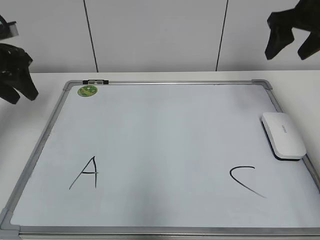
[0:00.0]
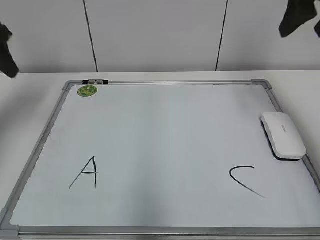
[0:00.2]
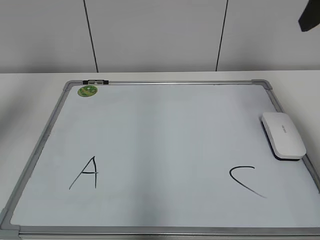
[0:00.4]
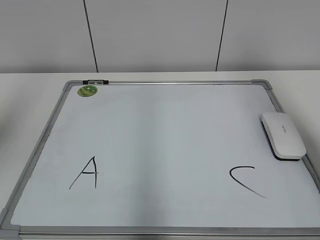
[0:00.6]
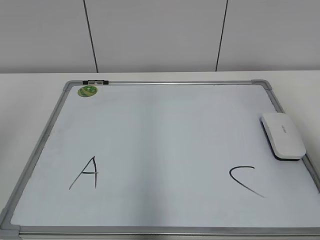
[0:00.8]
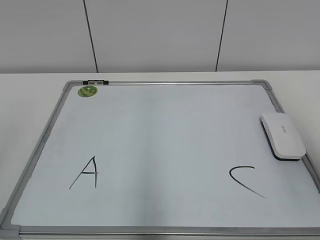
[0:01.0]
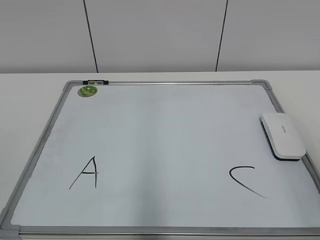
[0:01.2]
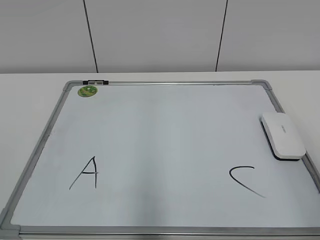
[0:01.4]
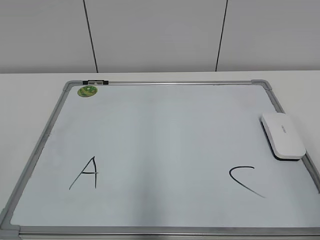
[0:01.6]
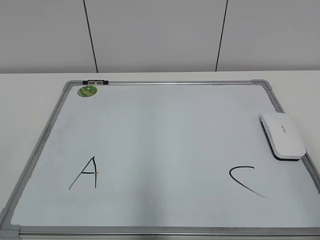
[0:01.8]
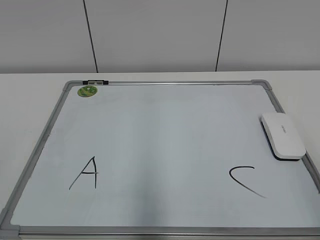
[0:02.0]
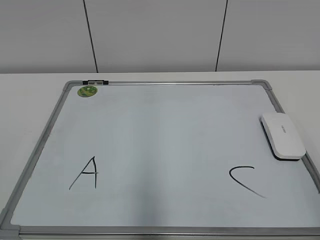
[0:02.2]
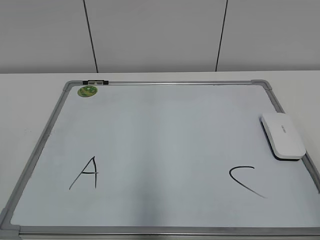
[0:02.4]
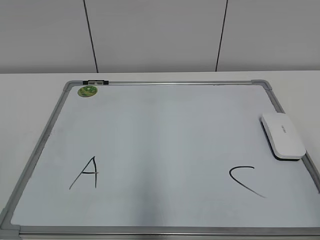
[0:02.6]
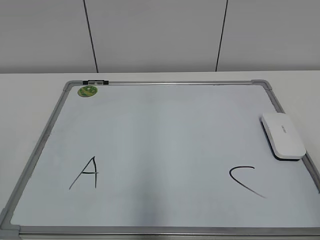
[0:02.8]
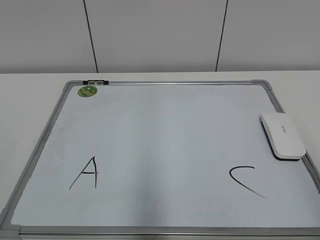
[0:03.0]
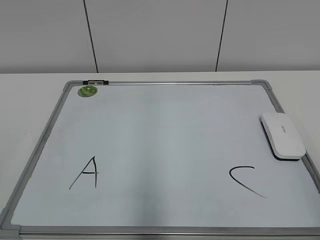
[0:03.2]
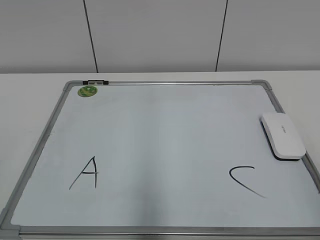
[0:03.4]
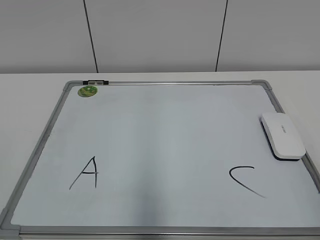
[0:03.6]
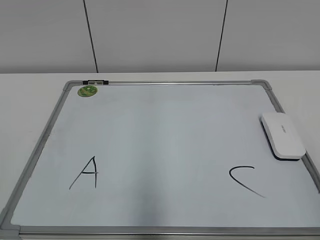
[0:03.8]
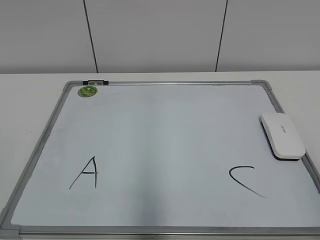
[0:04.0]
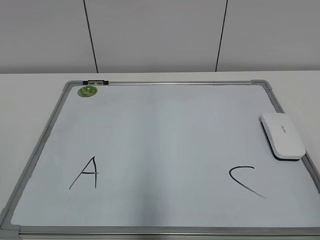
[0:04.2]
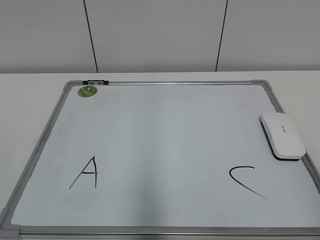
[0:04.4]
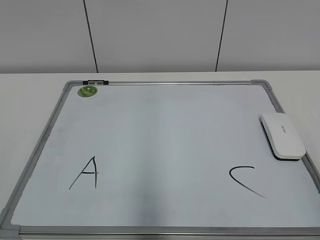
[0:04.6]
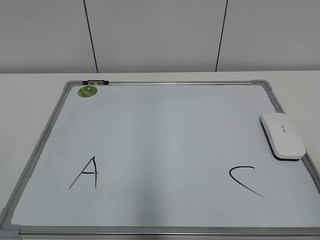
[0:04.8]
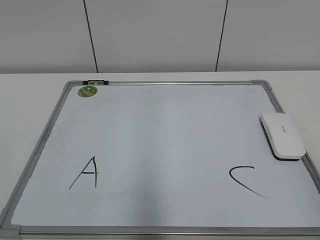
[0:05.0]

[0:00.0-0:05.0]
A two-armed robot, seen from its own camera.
Task of the whole recording: pick up the eraser on the blackboard and erase the letter "B".
0:00.0 to 0:01.6: The grippers both shift backward by some 40 cm.

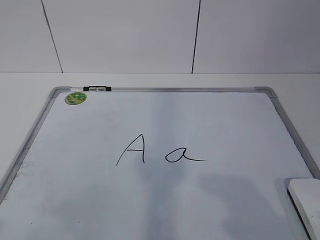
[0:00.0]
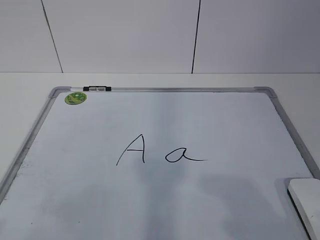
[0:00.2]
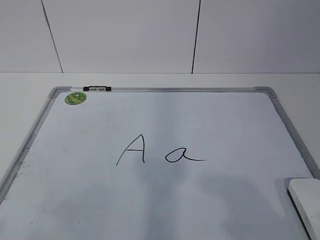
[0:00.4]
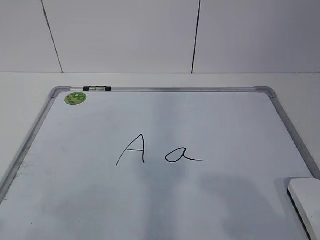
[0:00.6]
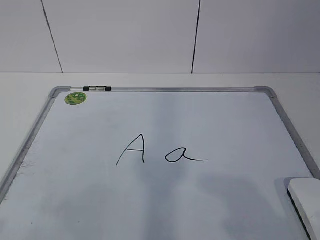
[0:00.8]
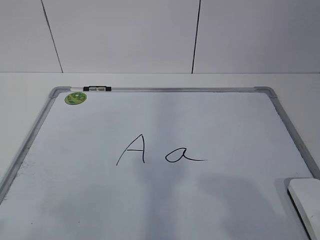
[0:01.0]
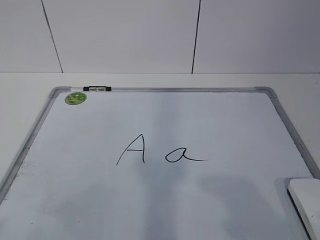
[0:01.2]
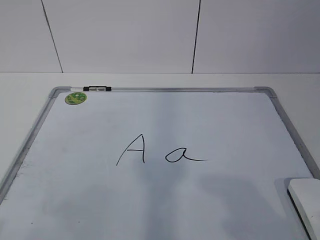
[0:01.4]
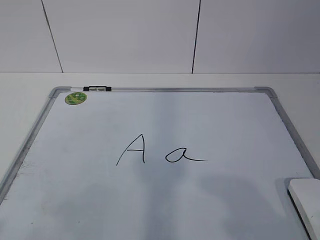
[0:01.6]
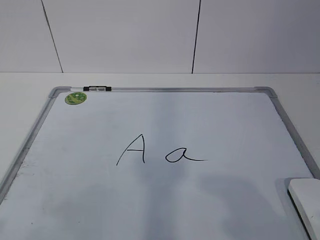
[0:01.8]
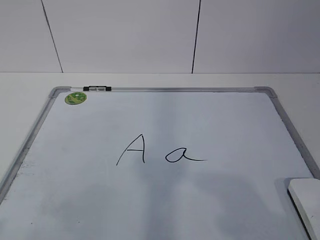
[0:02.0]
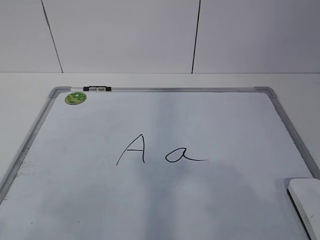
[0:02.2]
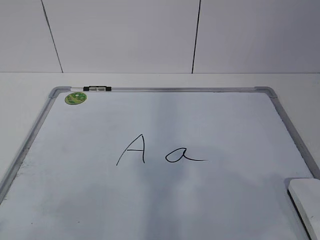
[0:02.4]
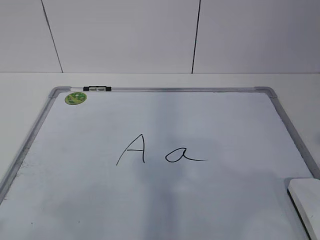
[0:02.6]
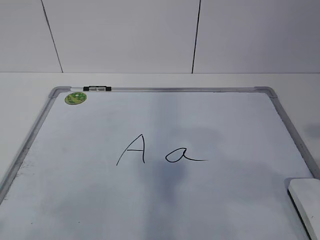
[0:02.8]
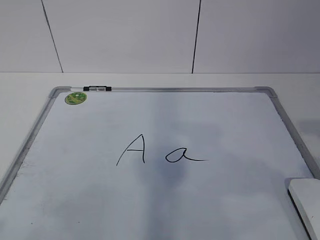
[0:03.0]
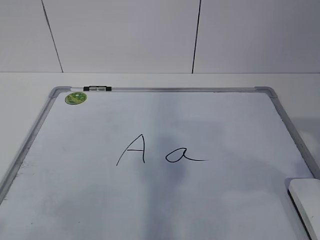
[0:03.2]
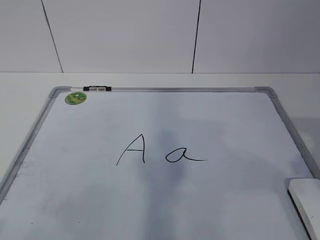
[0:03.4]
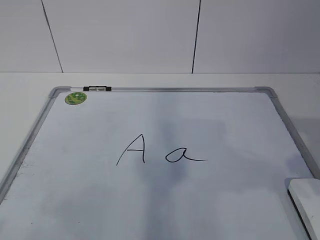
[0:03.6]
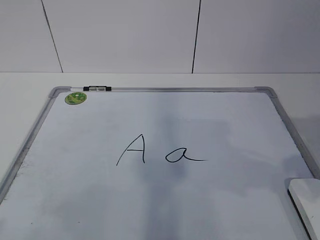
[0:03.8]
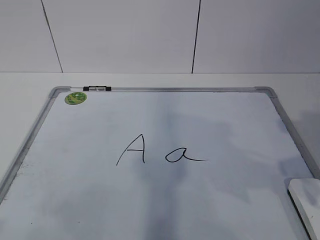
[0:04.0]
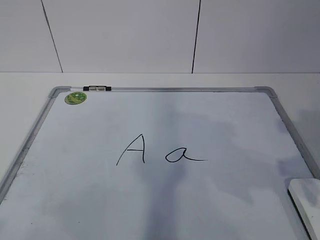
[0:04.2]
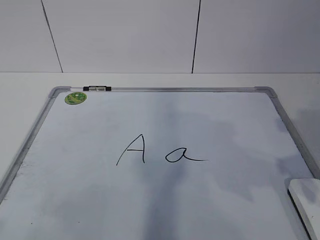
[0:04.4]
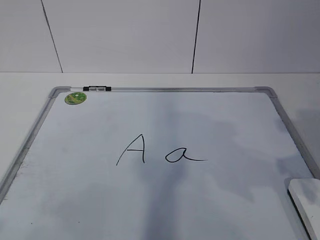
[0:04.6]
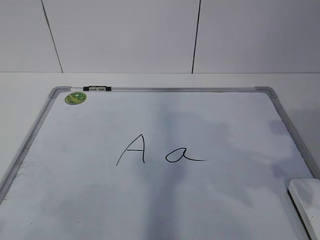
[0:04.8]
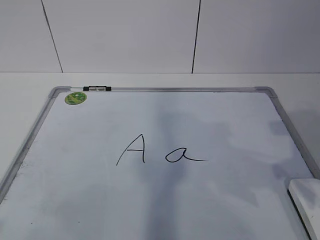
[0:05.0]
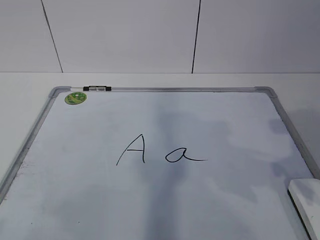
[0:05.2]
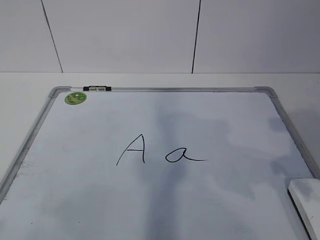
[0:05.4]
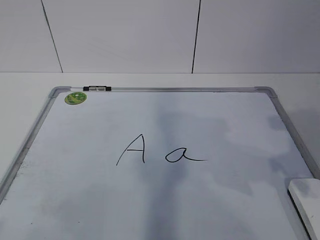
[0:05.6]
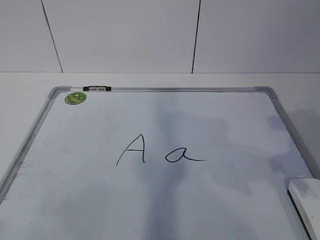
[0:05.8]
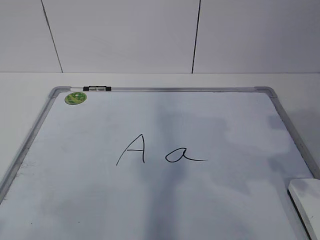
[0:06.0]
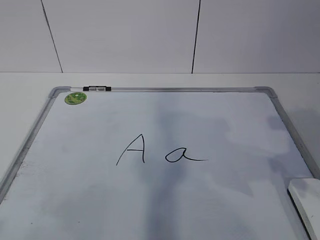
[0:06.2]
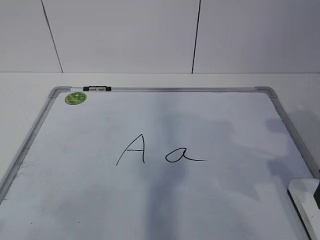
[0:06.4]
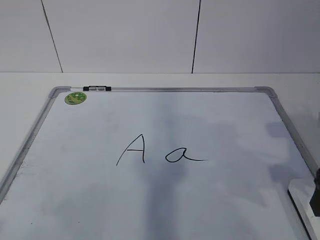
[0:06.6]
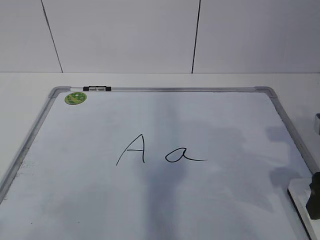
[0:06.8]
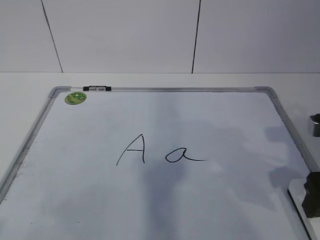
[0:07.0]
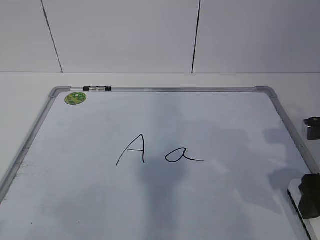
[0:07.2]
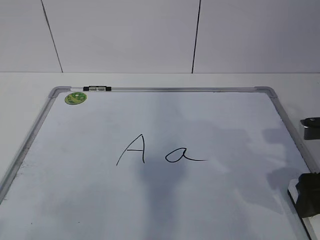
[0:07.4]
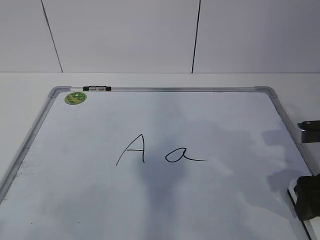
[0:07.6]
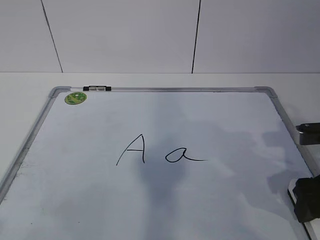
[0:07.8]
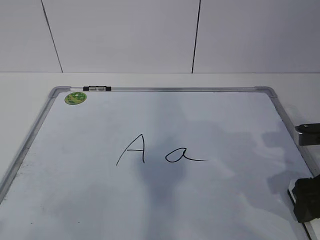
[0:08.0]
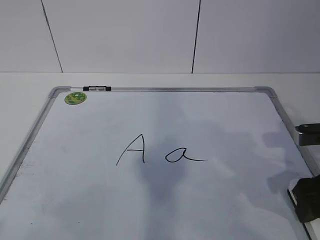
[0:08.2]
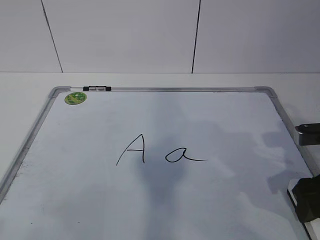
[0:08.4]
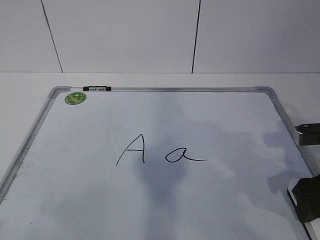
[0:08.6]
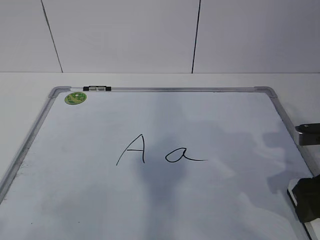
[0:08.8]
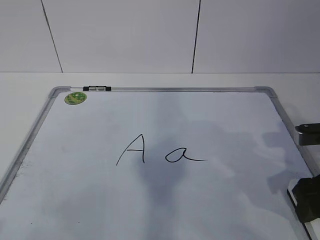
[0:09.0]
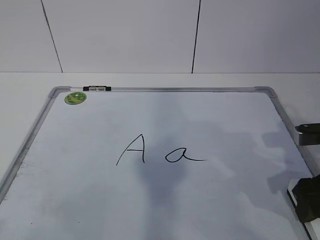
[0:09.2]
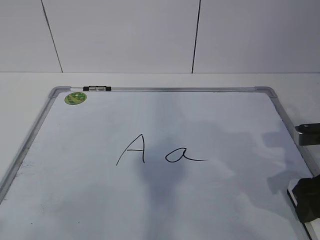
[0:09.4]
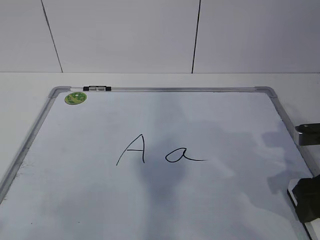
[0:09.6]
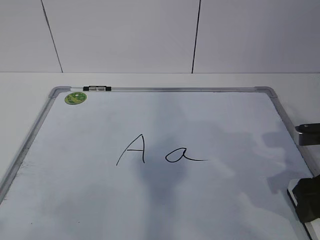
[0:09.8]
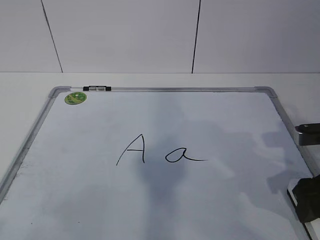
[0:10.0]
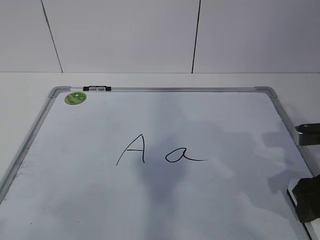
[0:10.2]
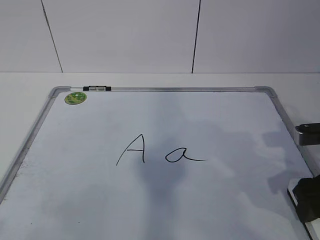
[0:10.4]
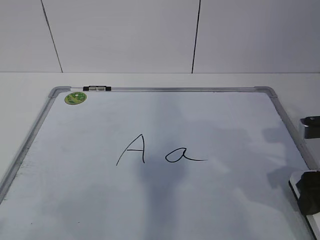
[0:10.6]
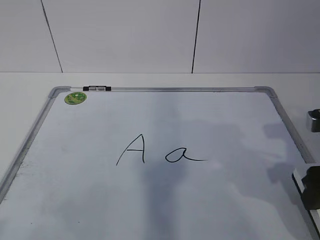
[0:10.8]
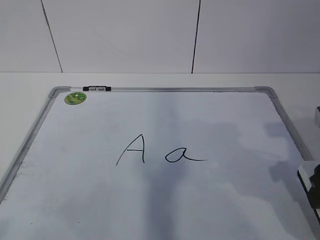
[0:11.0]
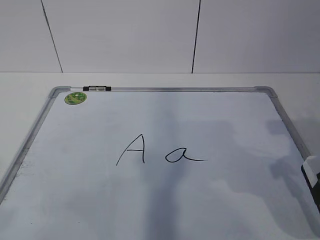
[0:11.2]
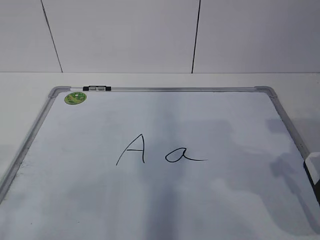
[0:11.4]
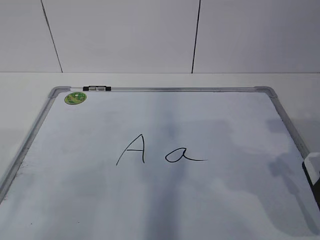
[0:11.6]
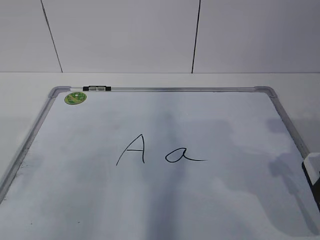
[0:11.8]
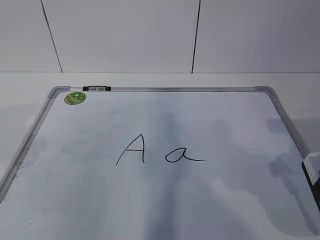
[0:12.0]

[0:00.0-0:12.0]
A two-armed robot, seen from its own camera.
Task of the whole recording: pick up the eraser on the blackboard and erase the letter "a".
Step, 0:07.2 to 0:11.8: Hold the drawing board steady with your left hand.
0:06.0 to 0:07.6: The right gripper shifts approximately 10 cm downward.
0:07.6 to 0:10.4: Both grippers stay put.
0:10.4 to 0:12.0: The right gripper shifts some 5 cm upward.

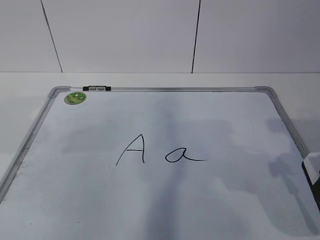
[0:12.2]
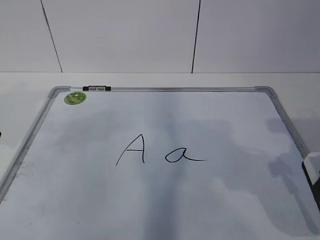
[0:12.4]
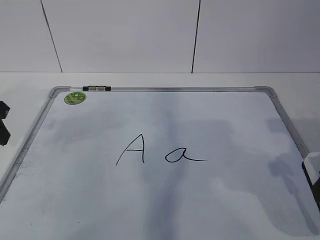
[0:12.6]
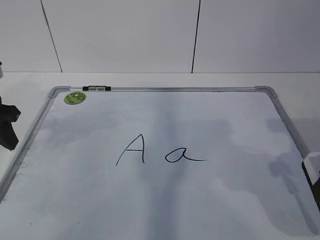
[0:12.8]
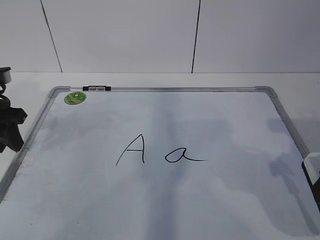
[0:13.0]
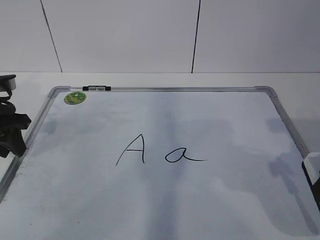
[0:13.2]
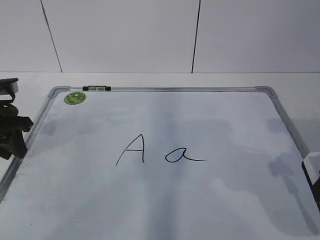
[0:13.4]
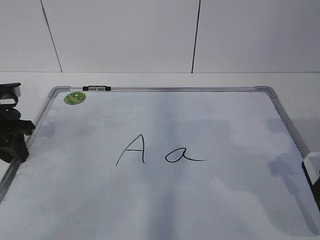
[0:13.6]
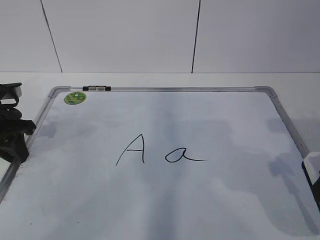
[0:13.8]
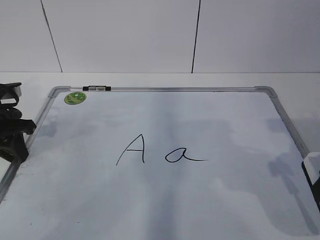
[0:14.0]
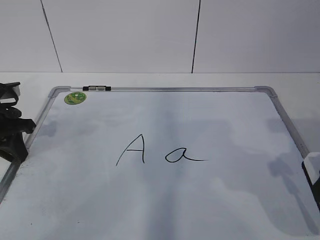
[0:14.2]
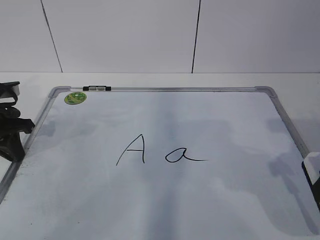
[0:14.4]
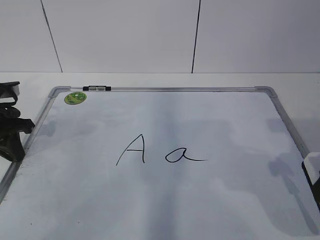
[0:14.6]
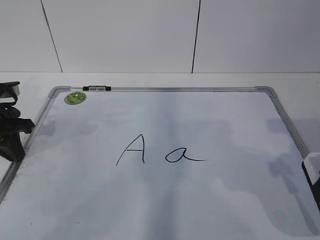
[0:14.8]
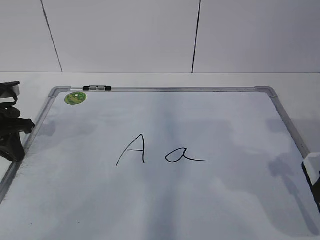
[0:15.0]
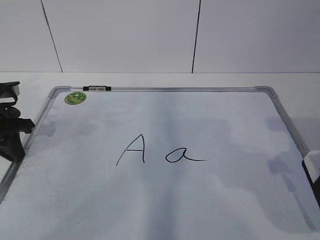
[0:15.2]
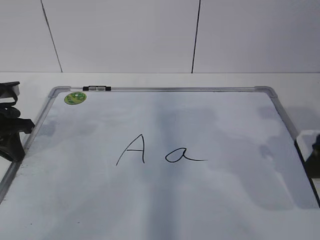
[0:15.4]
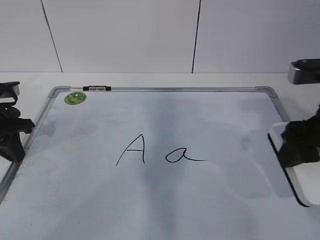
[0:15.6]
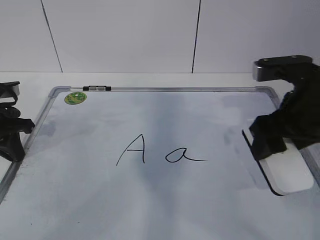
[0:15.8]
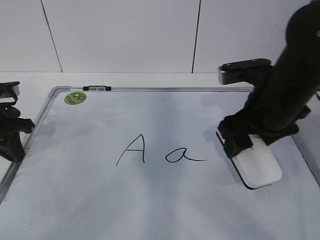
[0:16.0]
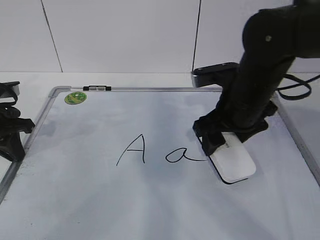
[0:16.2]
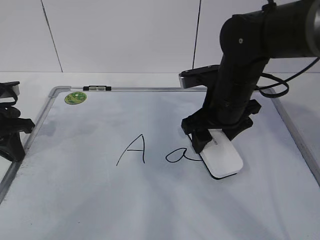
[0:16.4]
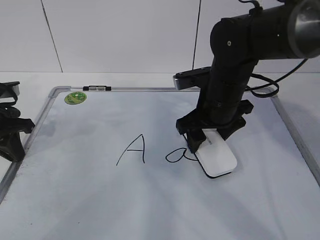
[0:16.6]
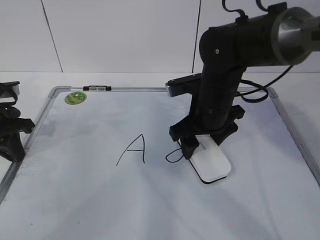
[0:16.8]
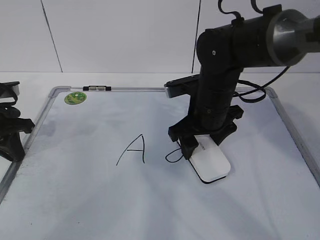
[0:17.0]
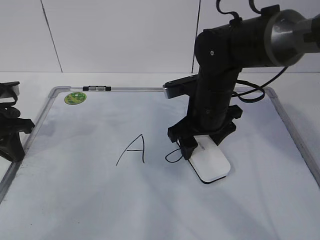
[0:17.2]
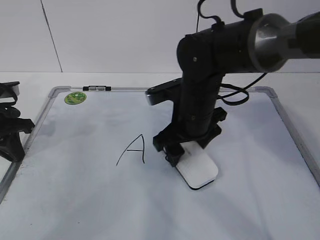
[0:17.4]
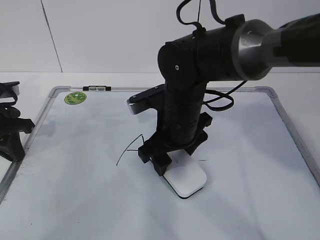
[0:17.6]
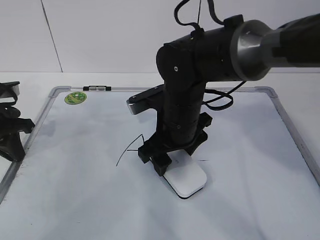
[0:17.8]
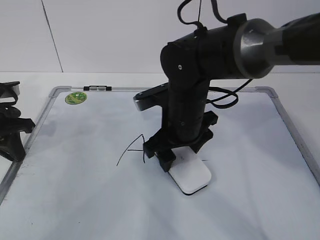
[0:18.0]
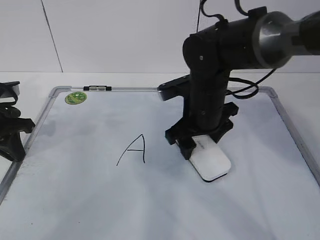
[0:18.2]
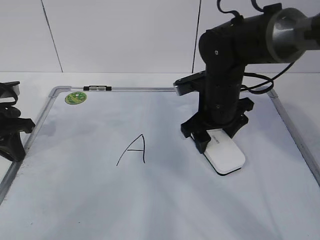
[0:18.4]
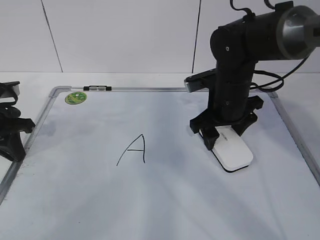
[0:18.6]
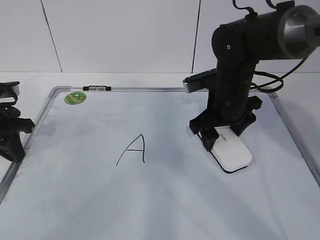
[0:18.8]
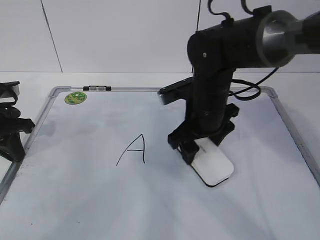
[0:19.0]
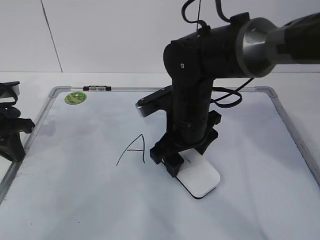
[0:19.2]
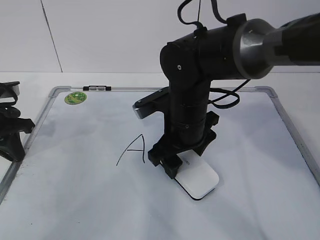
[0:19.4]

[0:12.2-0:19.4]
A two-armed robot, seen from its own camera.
Task of the whole recording: pick up the eraser on the blackboard and erase the letter "a".
Step, 0:12.2 to 0:16.0: Erase the letter a with your right hand.
Step, 0:16.2 to 0:18.4: Put down the eraser with your right hand.
0:12.2 to 0:13.6: The left gripper shifts roughly 15 cm forward and downward.
0:13.6 to 0:15.0: The left gripper closes up.
0:15.0 to 0:16.6: The right gripper heads forward and to the left, covering some 25 cm.
0:16.6 to 0:18.0: The right gripper moves to the left, approximately 5 cm.
0:18.0 to 0:19.4: The right gripper reaches roughly 10 cm to the right, then returns.
